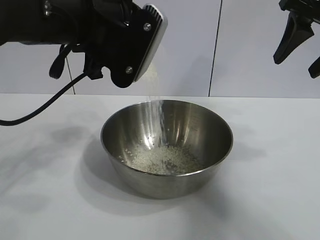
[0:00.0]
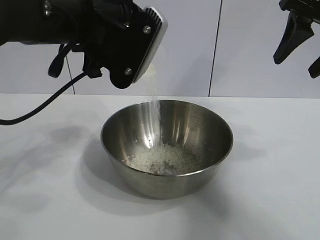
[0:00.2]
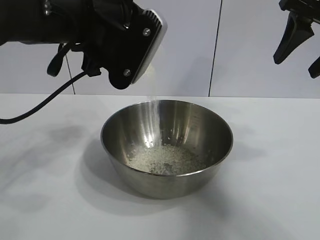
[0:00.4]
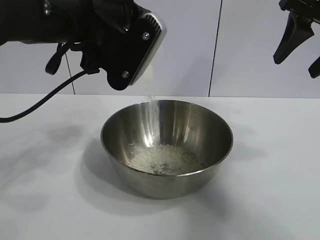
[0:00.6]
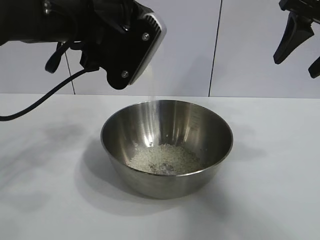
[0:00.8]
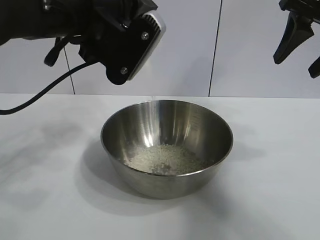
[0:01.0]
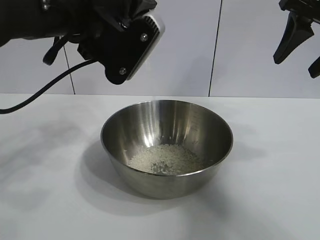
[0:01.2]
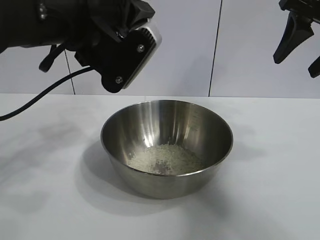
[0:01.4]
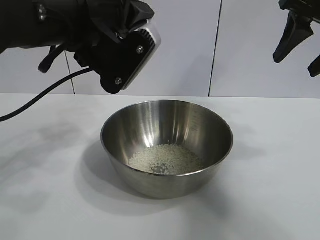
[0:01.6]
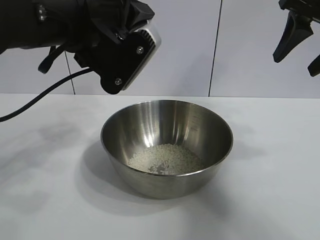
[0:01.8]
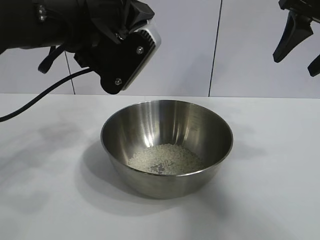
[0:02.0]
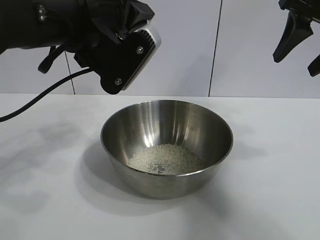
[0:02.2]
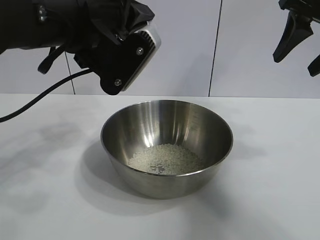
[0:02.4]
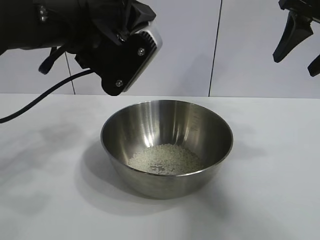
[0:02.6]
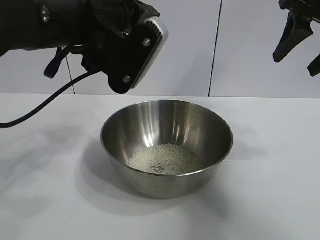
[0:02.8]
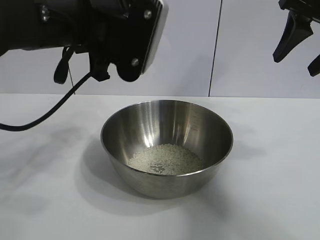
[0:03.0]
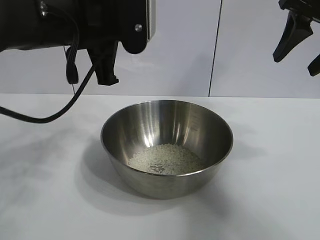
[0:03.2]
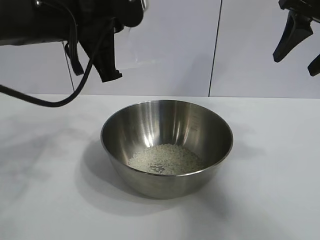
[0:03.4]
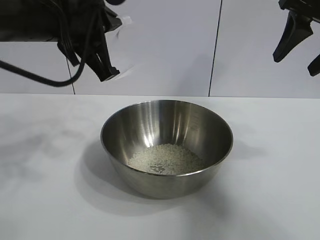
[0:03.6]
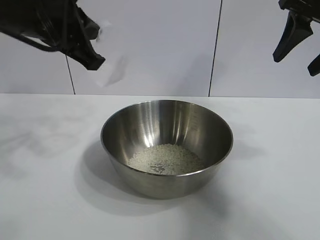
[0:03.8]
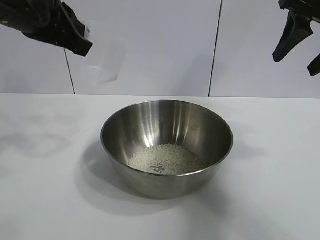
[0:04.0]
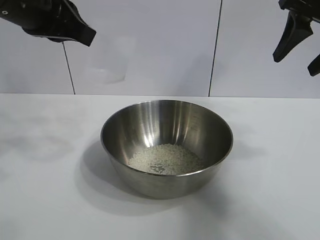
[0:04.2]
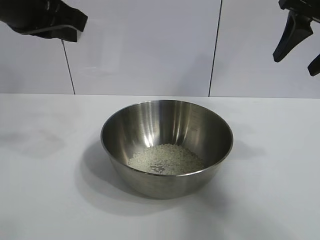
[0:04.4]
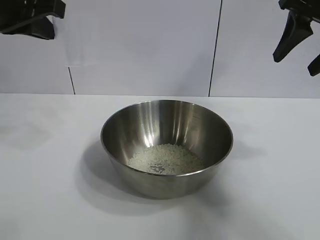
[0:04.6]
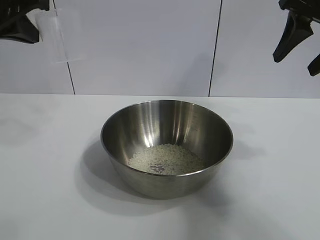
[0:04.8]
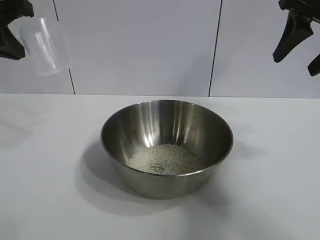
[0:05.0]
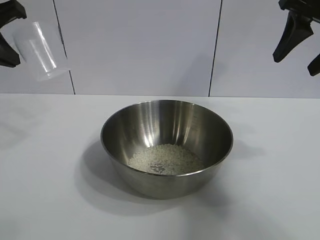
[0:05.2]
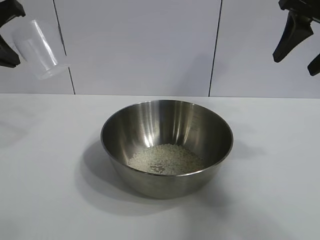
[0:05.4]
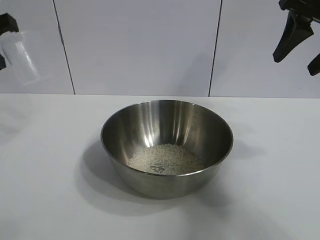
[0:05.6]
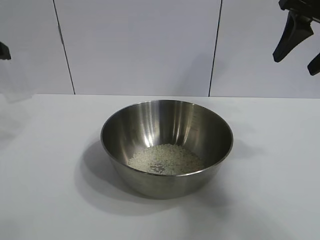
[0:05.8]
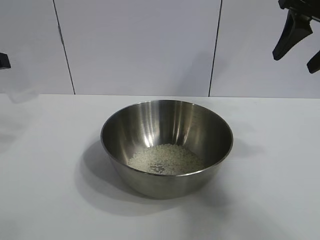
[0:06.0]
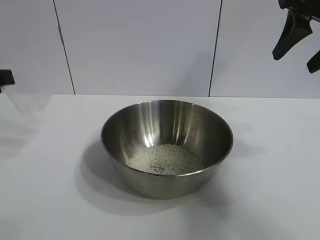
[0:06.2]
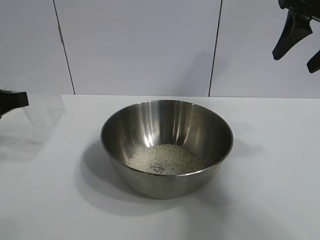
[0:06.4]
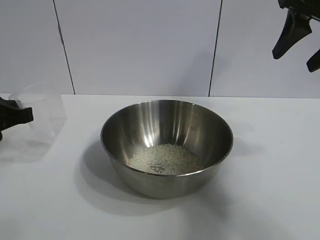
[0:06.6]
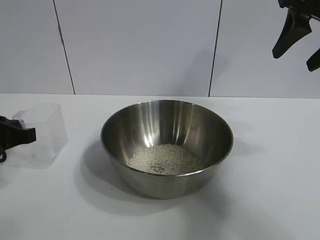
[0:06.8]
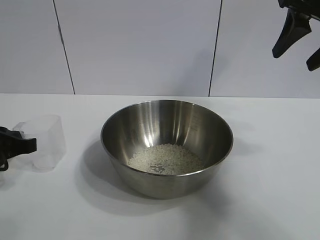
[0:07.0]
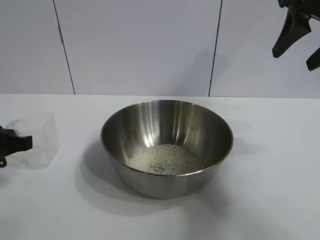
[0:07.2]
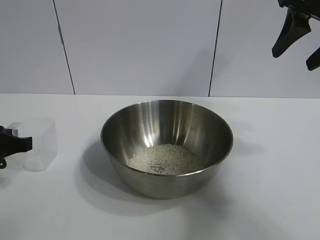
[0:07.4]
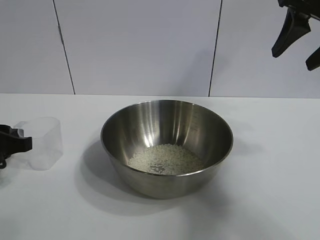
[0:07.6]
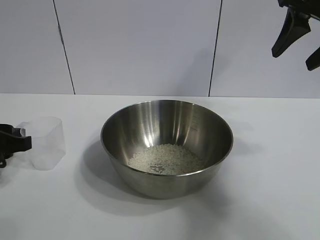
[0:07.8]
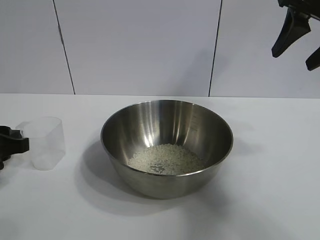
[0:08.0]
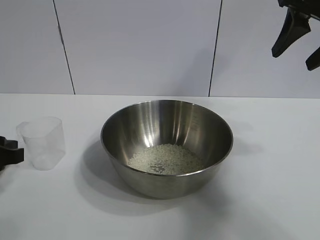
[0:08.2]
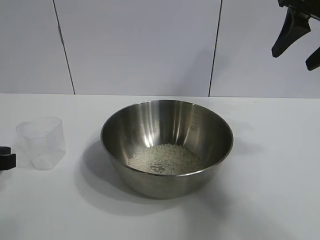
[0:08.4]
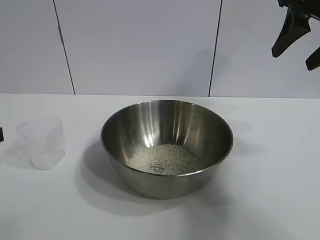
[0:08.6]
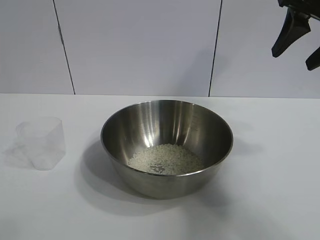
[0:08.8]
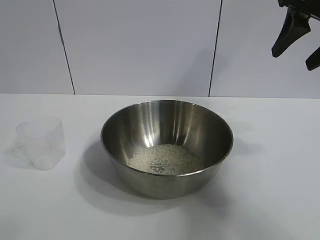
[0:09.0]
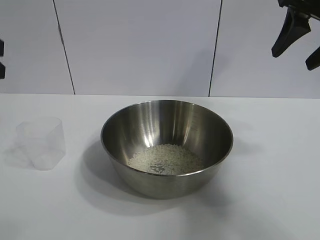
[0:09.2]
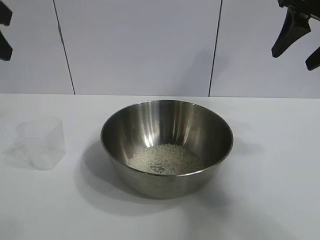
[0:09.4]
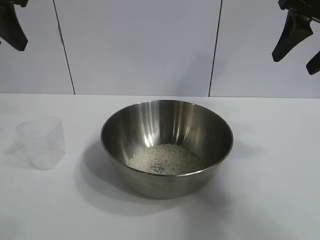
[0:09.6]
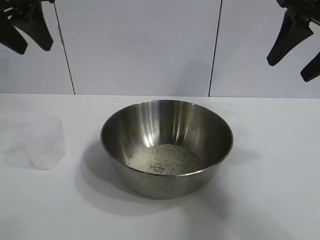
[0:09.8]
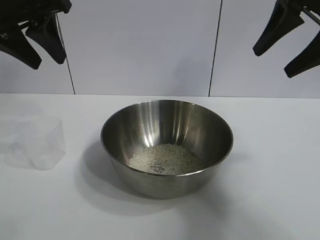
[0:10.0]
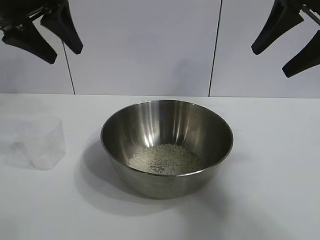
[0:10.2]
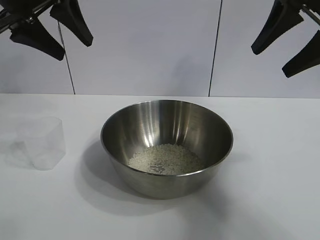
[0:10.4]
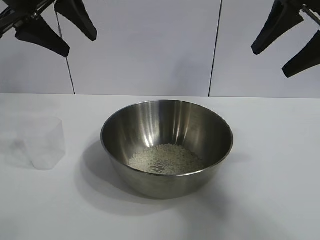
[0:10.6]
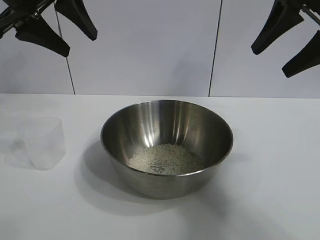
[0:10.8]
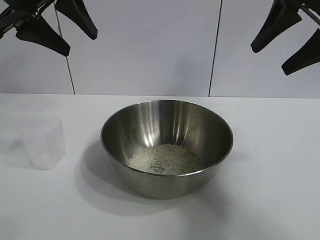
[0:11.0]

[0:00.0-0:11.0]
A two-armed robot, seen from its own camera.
Task of the whole recording: the right gripper grasp the rice container and place it in the center of the table, the left gripper grasp the rice scoop and pour the rice into the rice container.
Step, 0:00.0 to 0:02.6: Pour the rice from the cup into the bowl with the left gripper.
Step, 0:03.0 to 0:07.6: Place the cup on the table with the left gripper.

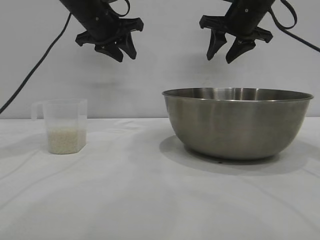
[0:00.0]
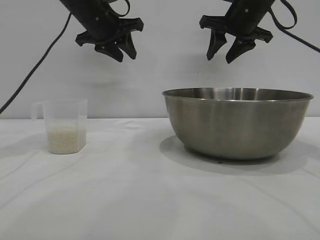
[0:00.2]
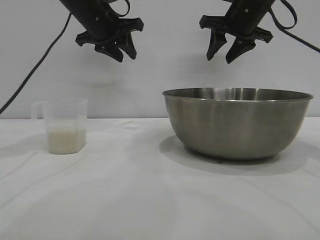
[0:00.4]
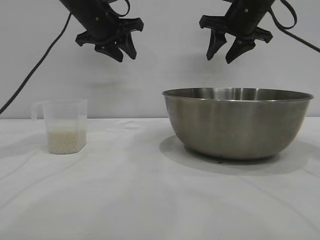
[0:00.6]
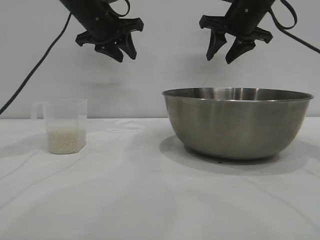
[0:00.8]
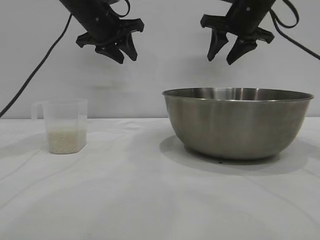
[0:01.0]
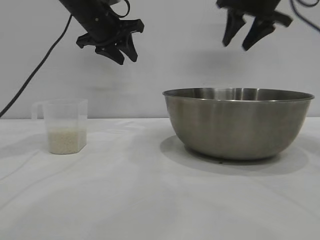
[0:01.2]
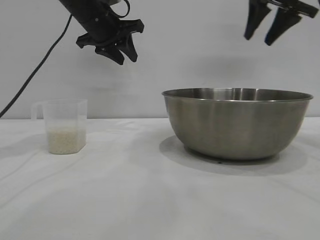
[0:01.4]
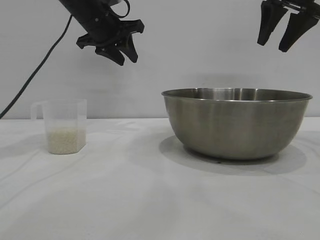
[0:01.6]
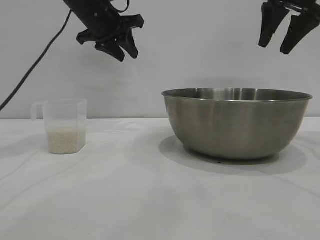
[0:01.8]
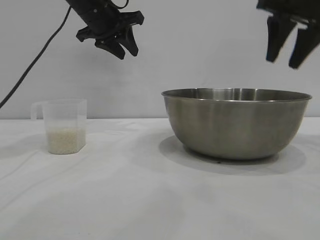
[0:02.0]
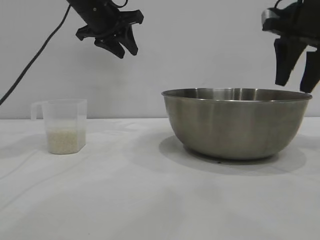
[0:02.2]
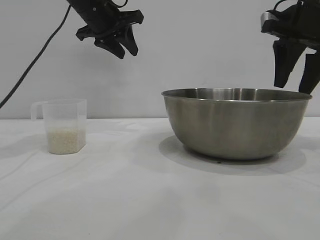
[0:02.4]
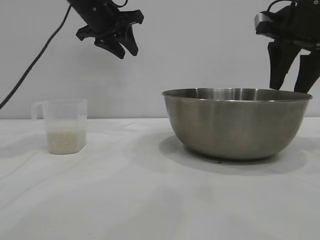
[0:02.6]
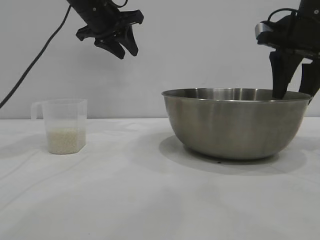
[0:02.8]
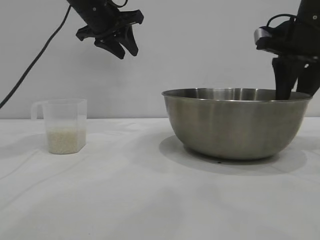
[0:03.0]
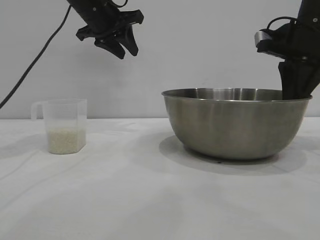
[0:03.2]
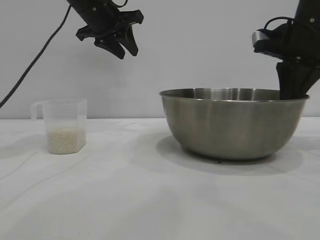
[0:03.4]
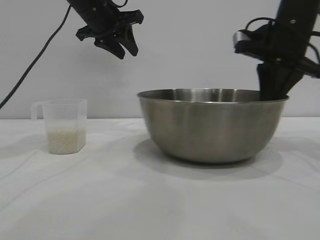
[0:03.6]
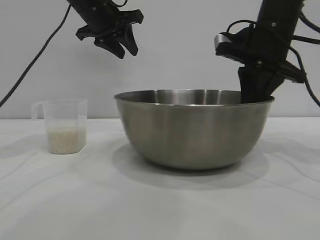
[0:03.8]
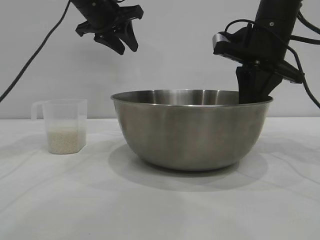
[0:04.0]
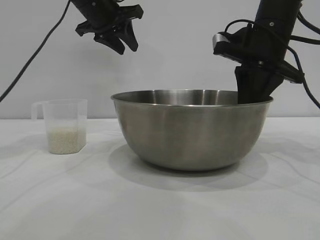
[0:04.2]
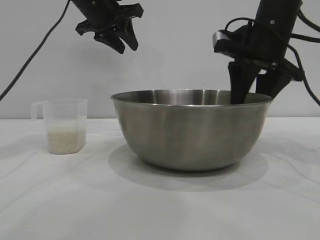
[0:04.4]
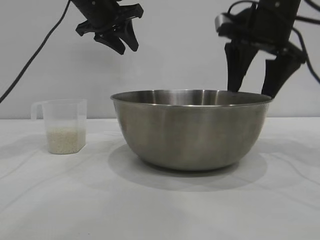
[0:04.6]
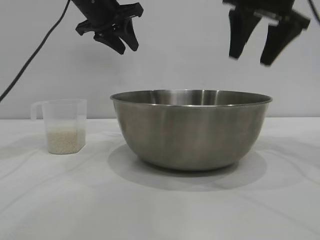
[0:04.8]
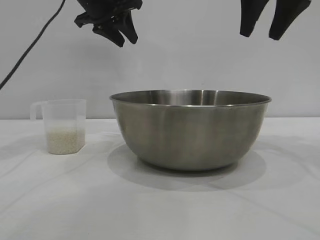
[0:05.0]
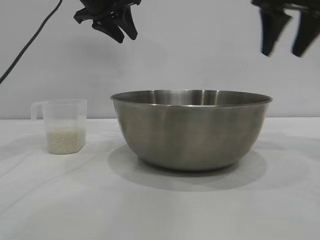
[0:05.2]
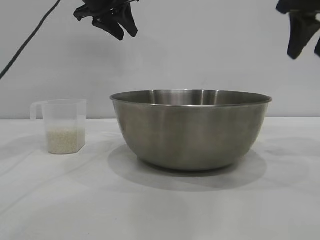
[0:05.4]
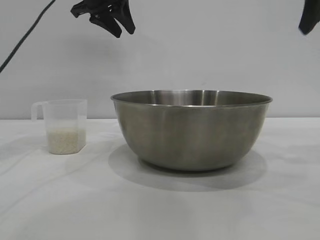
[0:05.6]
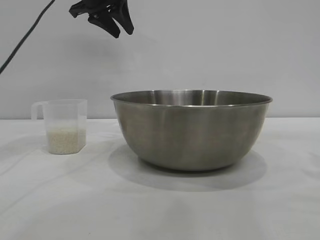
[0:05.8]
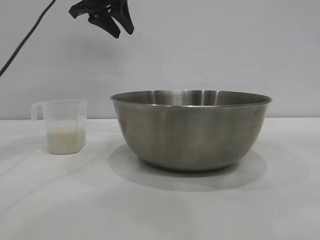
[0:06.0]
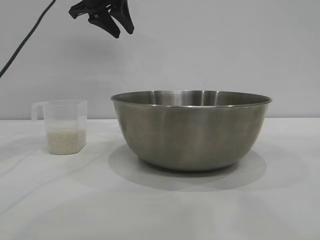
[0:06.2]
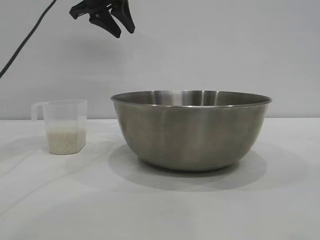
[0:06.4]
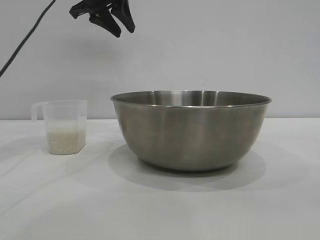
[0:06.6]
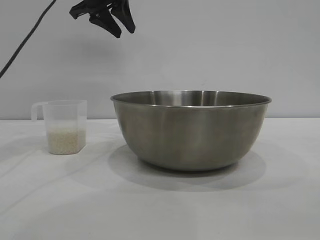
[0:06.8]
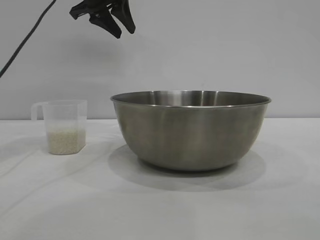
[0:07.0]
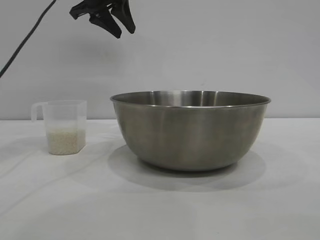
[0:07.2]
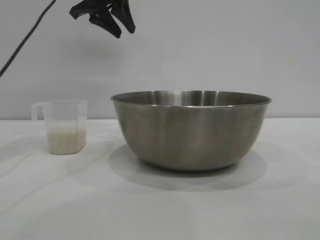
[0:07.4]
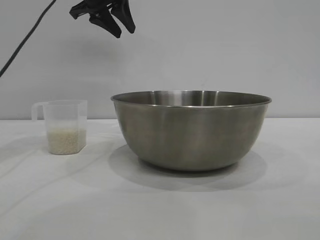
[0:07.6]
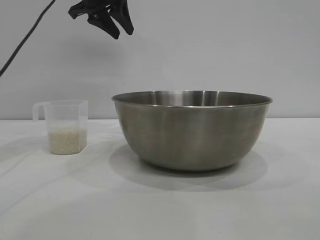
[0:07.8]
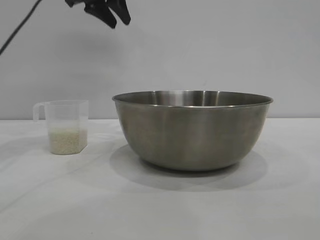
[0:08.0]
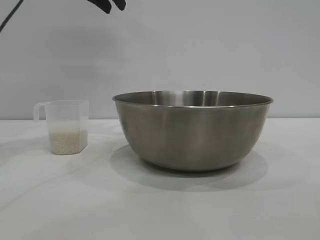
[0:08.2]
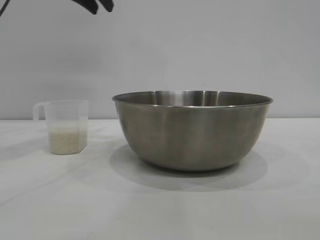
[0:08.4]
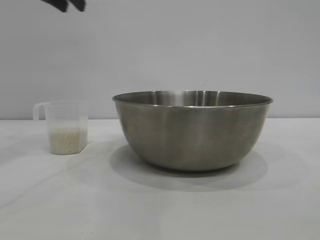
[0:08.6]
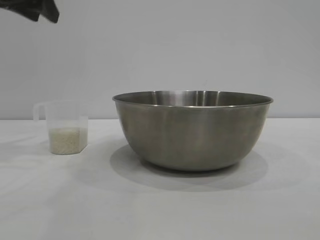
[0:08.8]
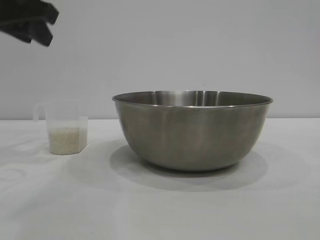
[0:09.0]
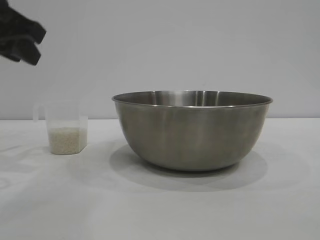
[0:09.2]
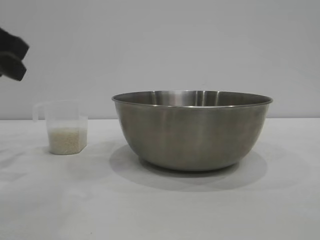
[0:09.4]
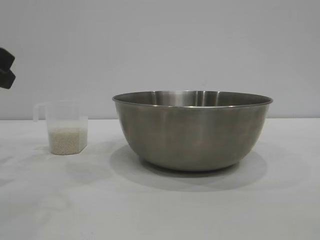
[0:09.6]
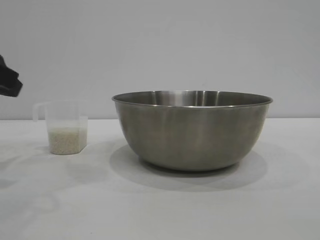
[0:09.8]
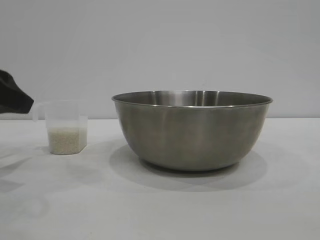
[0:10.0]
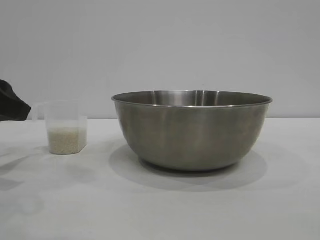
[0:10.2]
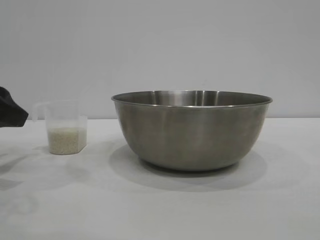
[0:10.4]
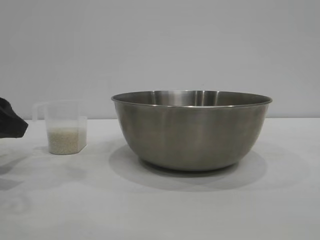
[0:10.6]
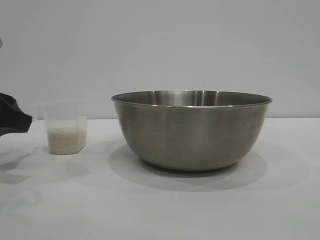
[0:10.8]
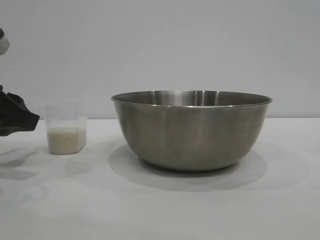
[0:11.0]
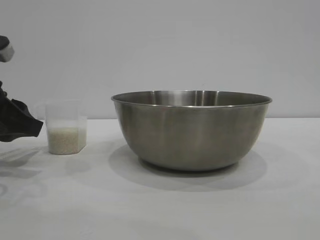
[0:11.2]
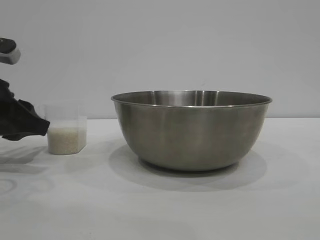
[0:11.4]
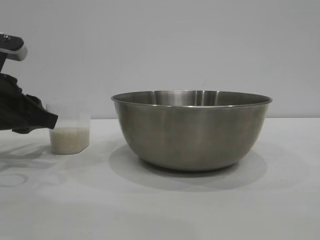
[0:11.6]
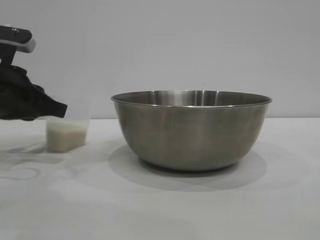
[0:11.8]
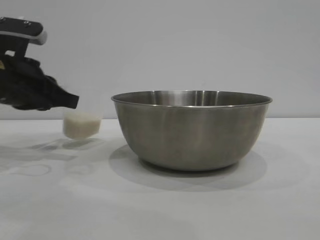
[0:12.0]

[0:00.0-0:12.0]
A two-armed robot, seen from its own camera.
Task of the whole recording: the right gripper grasp the rice container and place it in the center of the table, the left gripper grasp the rice scoop and pour the rice into the rice container.
Step, 0:00.0 to 0:04.6: Move the bowl to the center of view with the right gripper.
